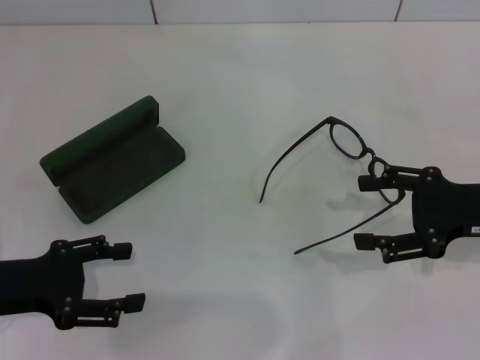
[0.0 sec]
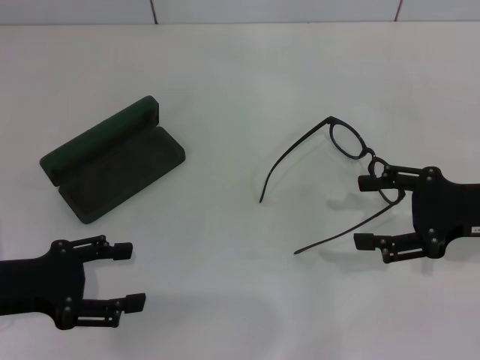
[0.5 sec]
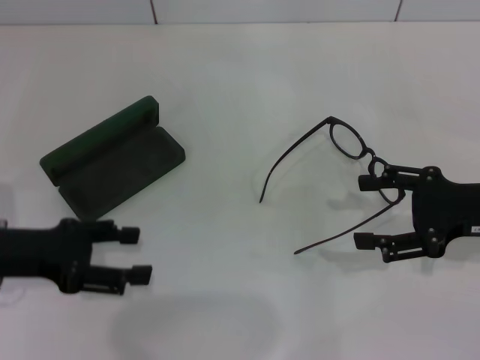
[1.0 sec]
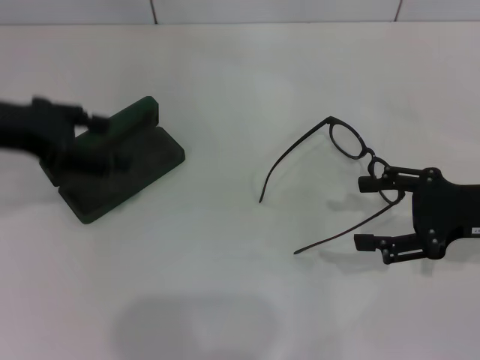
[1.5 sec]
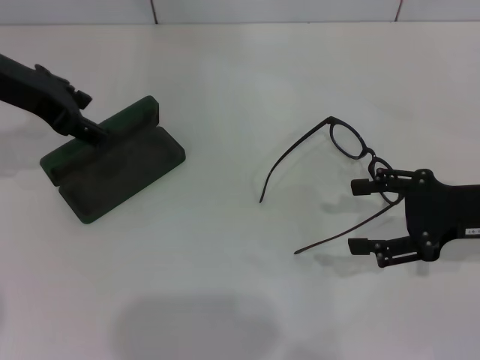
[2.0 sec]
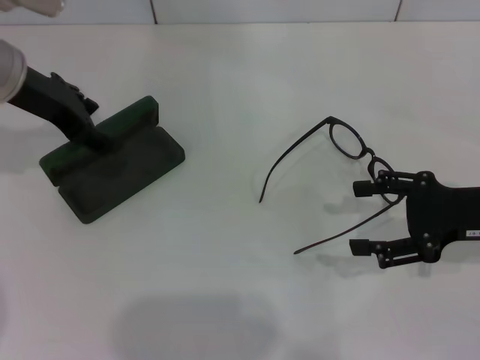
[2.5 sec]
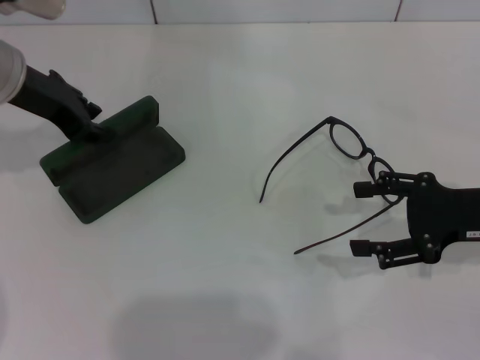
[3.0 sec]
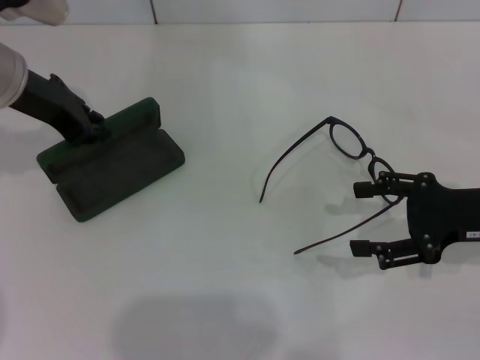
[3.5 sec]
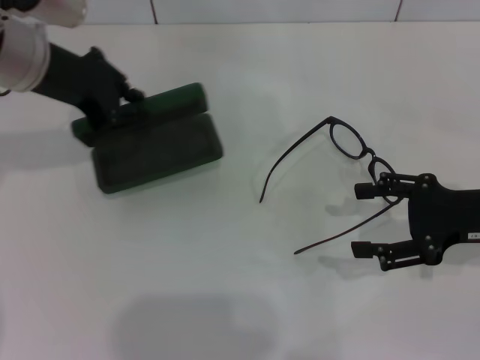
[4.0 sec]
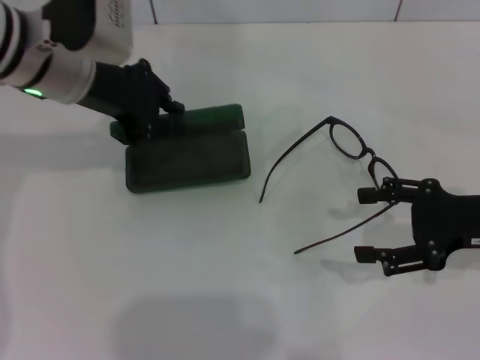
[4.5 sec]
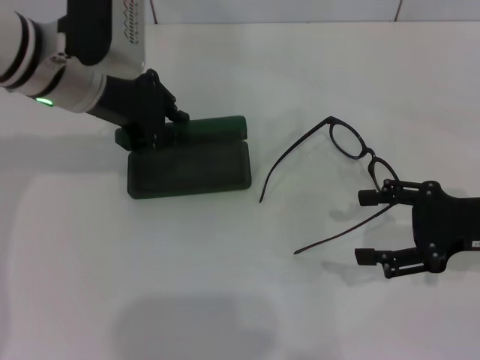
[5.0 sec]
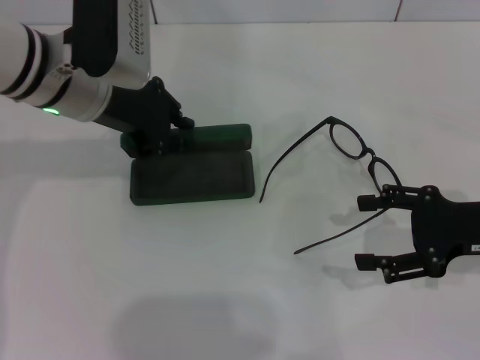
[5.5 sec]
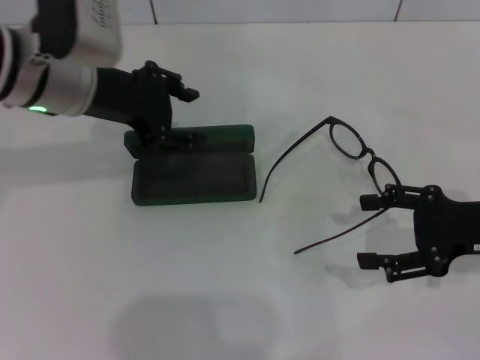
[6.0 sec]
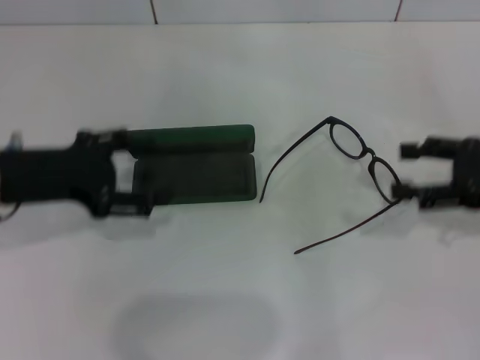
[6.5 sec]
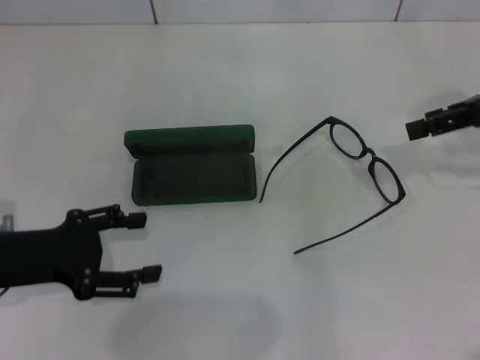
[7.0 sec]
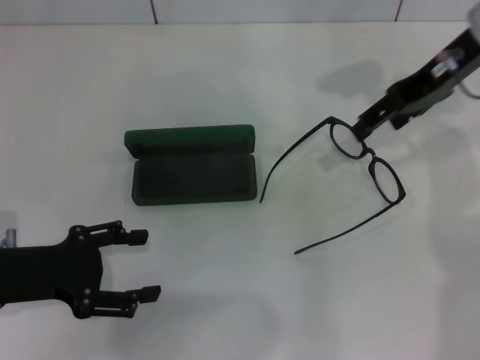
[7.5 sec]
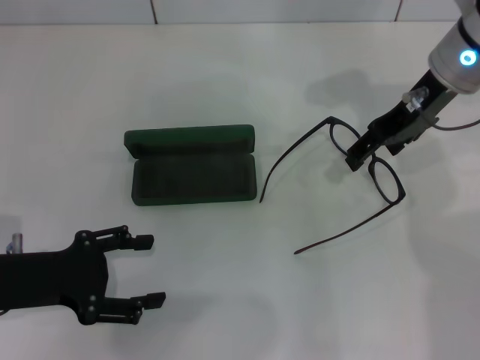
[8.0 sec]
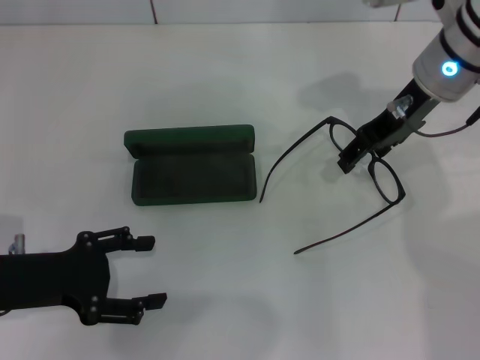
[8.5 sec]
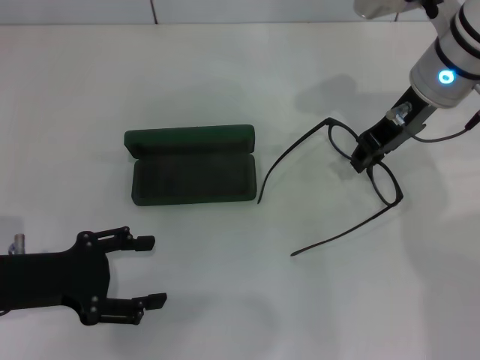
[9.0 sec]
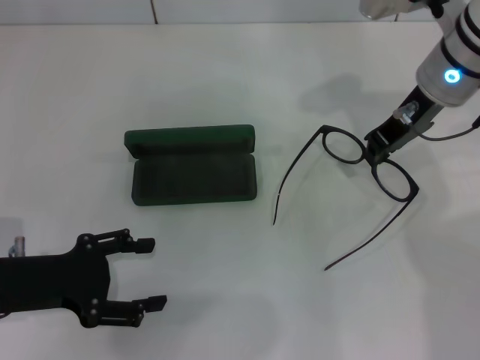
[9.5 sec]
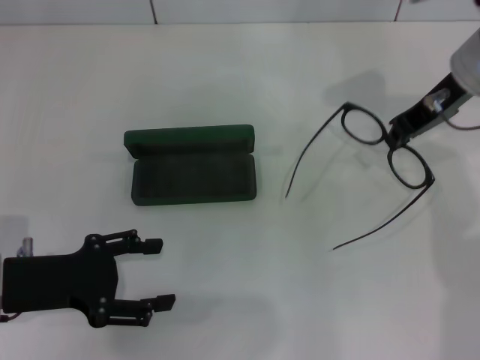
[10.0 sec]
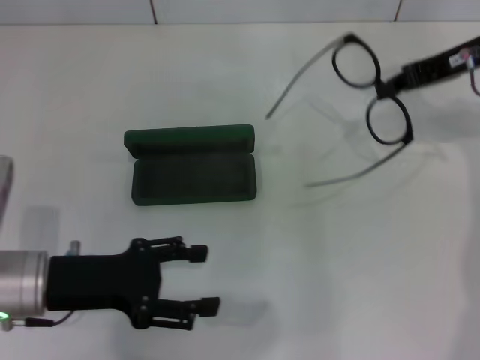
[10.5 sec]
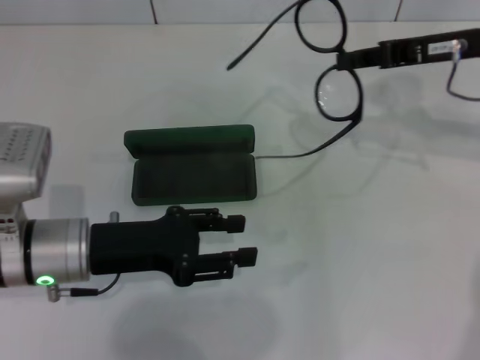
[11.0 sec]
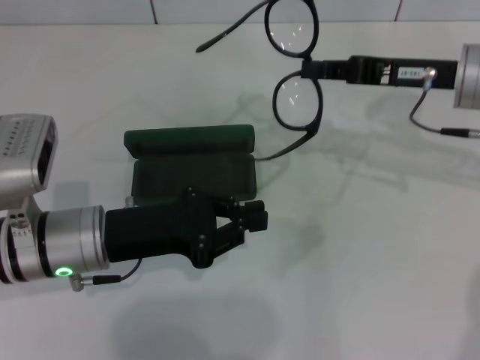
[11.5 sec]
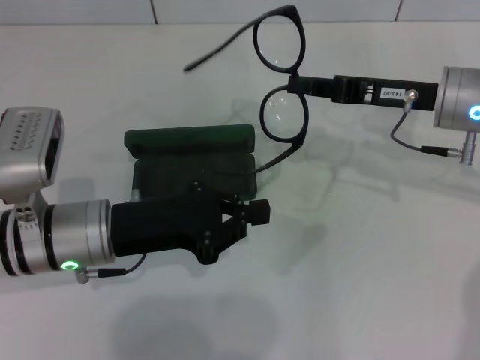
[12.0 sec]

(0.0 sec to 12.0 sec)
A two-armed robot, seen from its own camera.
Step, 0.0 sec - 3.0 sec: Grab the glasses case with your left hand.
Step, 3.5 sec - 5.5 sec: Place the glasses case in the center of the table with your left hand.
Step, 6.0 sec - 9.0 sec: Grab the eyeglass frame with your right hand.
0.0 sec - 2.0 sec: The left gripper is displaced forward and upward by about 20 cm.
2.0 sec - 4.0 sec: The left gripper closes its fingers.
4.0 sec - 6.0 sec: The grippers move only a little.
6.0 sec - 8.0 sec: The right gripper moves forward, to the left and upward, about 20 cm, while the left gripper shifts about 20 cm backward, downward and to the left, and opens.
8.0 sec - 10.0 sec: The right gripper closes its fingers.
10.0 sec - 12.0 sec: The left gripper shifts roughly 10 cm to the right, and closes up. Meanwhile the right gripper shifts approximately 5 cm downward.

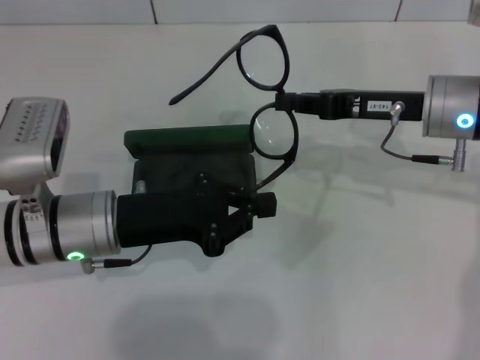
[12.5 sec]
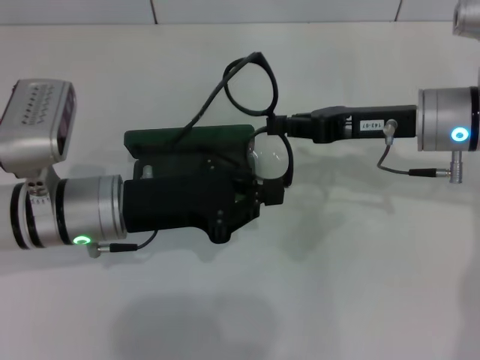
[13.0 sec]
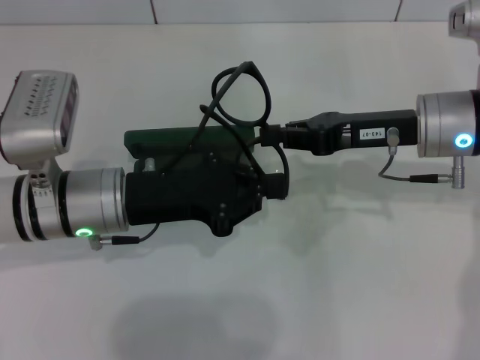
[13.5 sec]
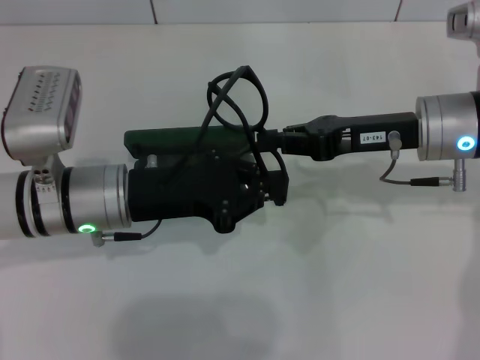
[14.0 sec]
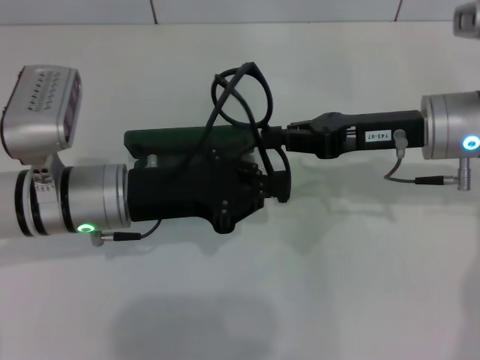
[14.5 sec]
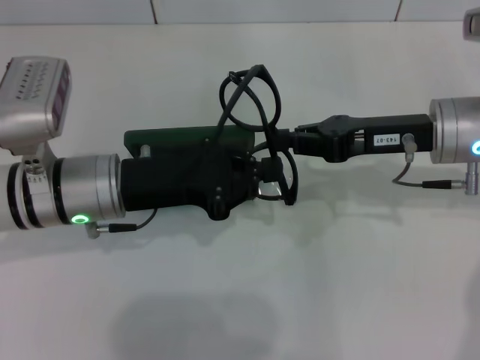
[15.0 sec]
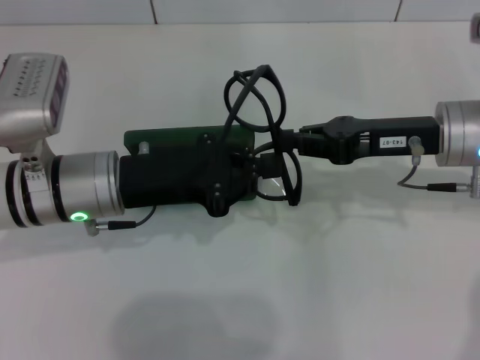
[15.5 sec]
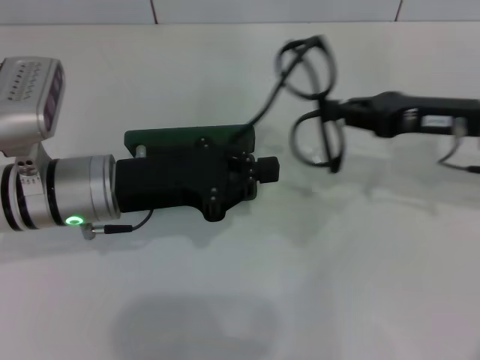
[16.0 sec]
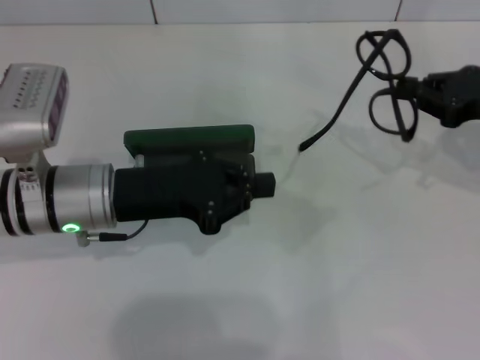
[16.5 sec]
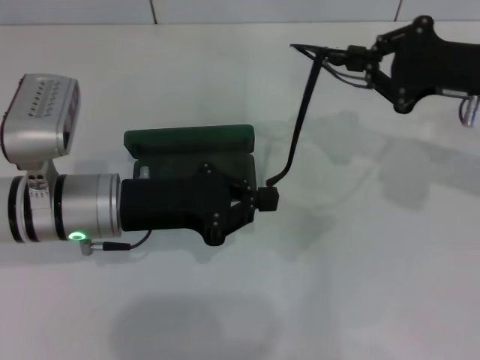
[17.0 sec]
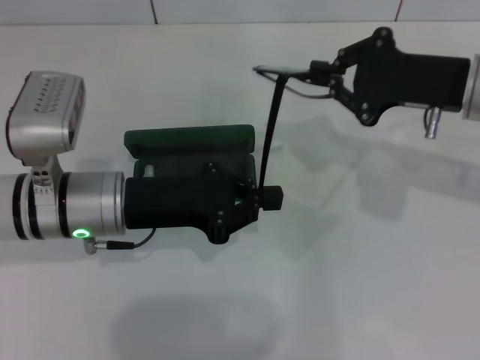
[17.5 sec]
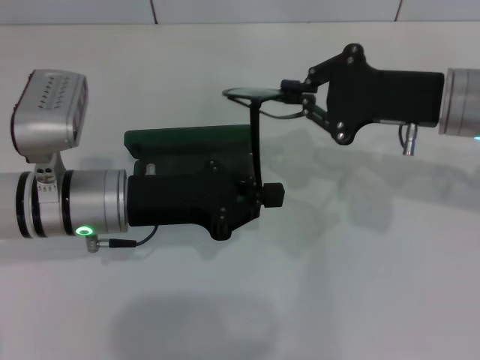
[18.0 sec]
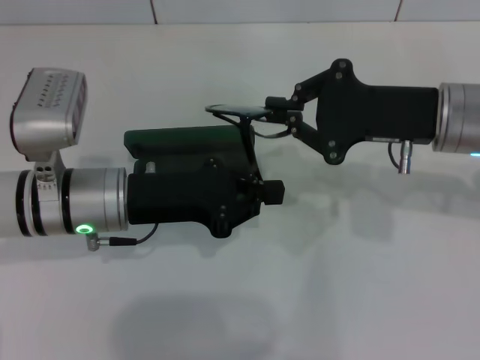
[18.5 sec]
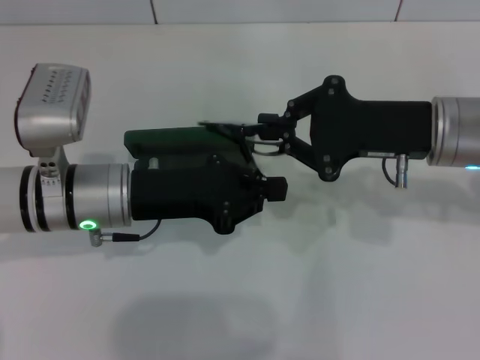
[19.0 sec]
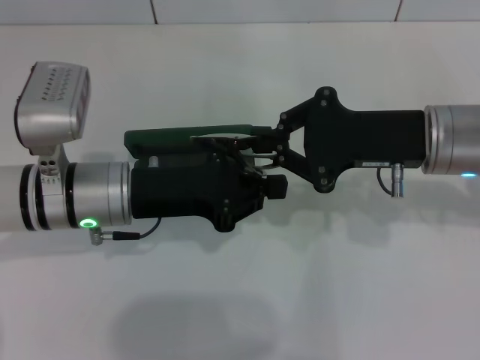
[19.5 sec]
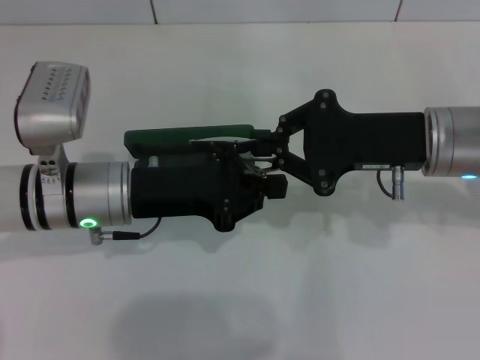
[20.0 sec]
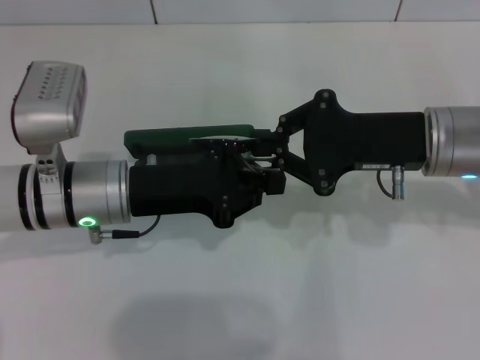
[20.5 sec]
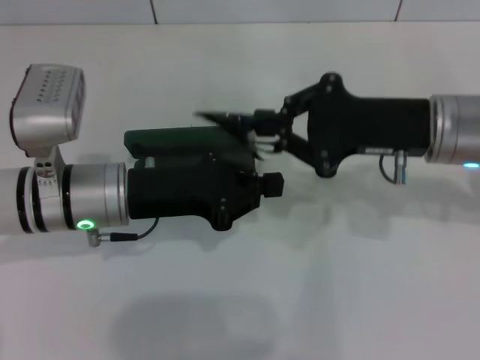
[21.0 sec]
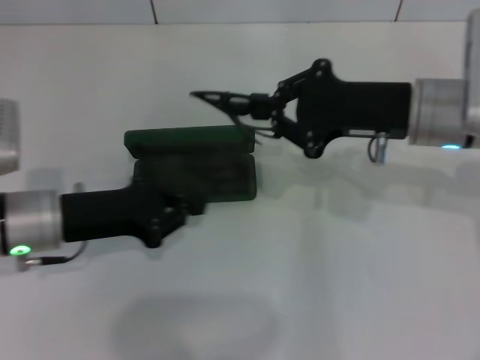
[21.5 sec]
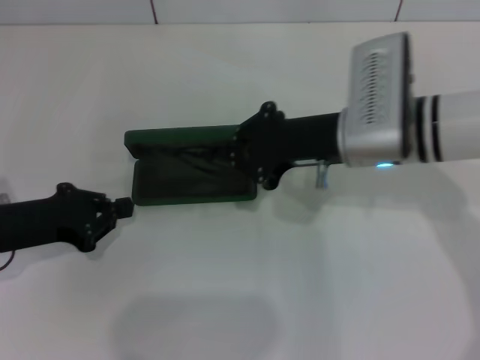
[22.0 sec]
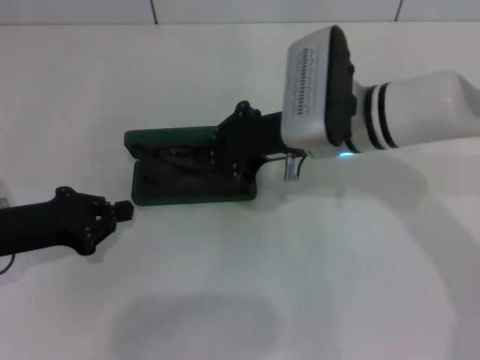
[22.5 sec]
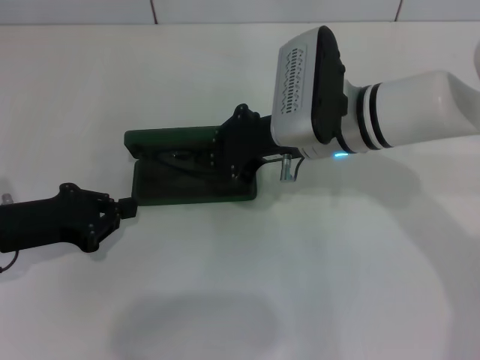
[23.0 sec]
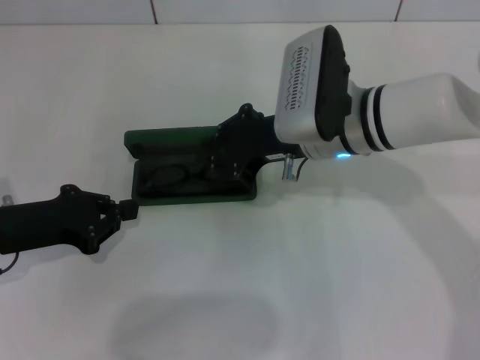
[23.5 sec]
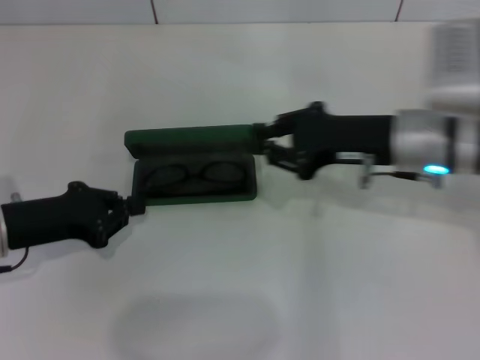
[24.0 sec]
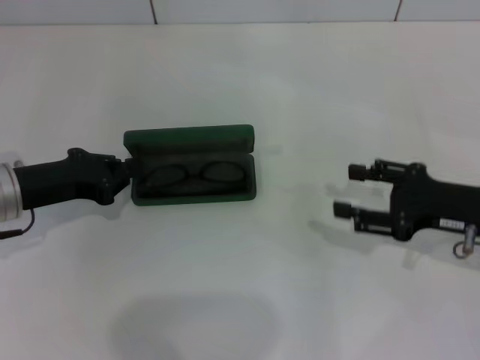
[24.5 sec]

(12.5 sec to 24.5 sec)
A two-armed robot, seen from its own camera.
Step, 12.5 sec - 20.5 sec: Lift the glasses with your right hand.
Step, 21.0 sec - 23.5 sec: Put the glasses into the case with your right hand.
14.5 sec - 16.5 sec: The right gripper heads to the right, covering roughly 10 cm.
16.5 sec - 18.5 sec: The right gripper goes some 10 cm to the left.
18.5 sec - 20.5 sec: There are only small adjustments of the grippers.
20.5 sec - 22.5 sec: The two grippers go some 10 cm to the left.
22.5 sec - 24.5 sec: The right gripper goes roughly 20 cm to the right and backward, and opens its fingers.

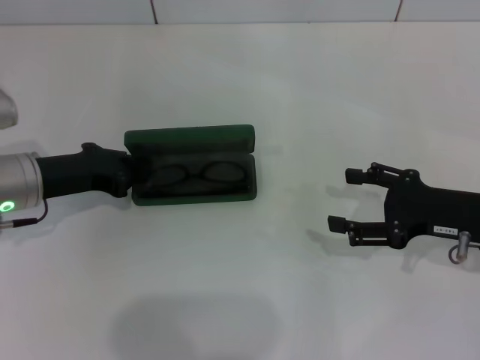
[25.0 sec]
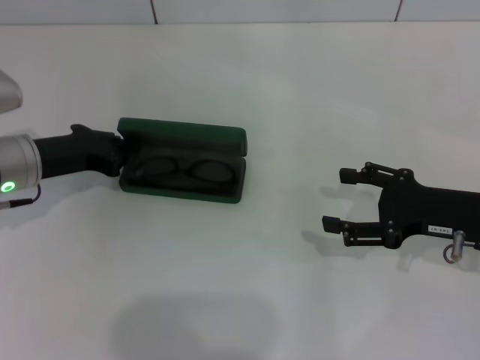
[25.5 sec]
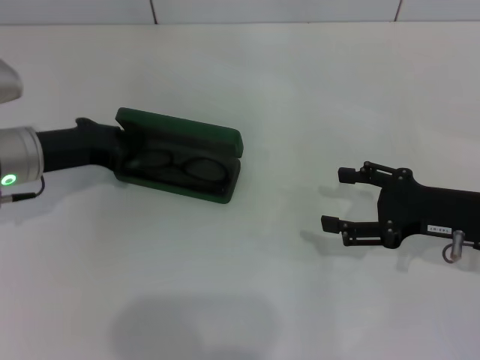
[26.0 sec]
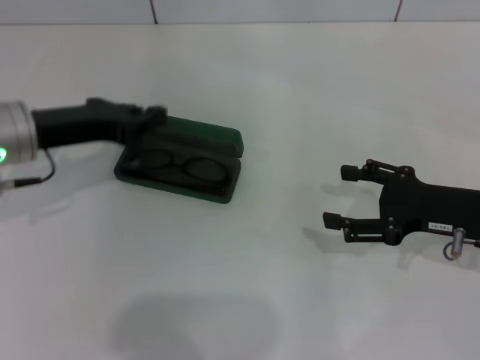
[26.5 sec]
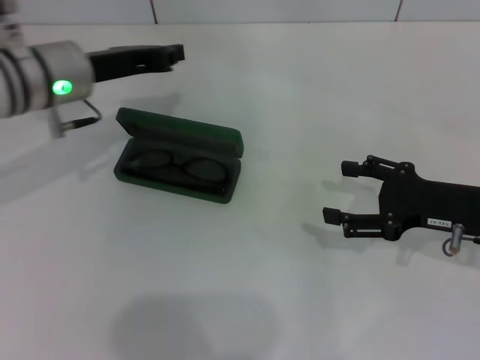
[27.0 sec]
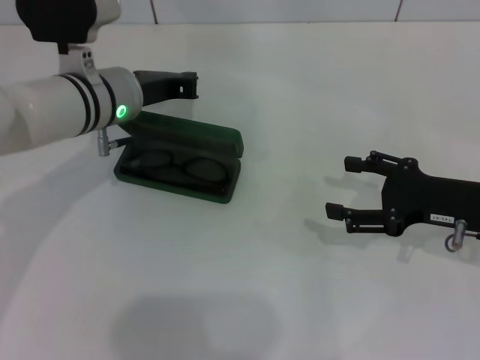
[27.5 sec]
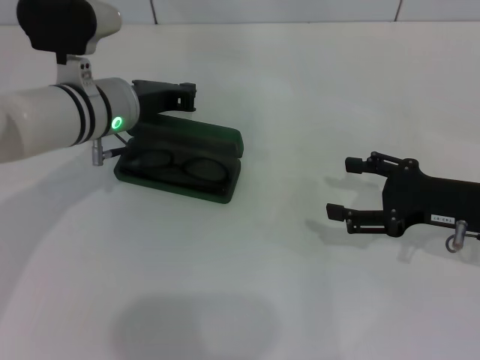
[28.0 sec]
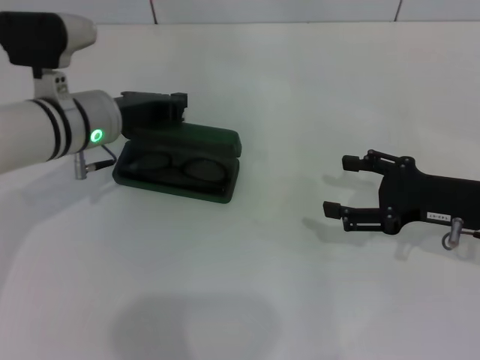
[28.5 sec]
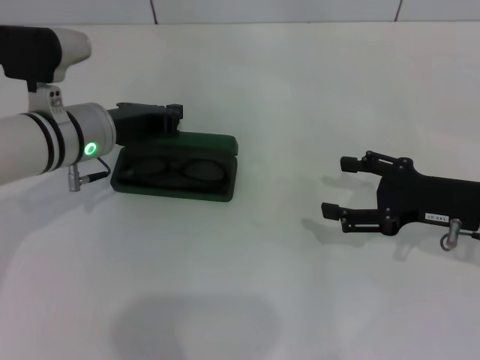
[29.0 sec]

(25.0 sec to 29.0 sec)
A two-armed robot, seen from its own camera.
25.0 sec - 27.0 sec: The left gripper goes roughly 10 cm upward, to the right and forward.
27.0 sec - 29.0 sec: The left gripper goes approximately 5 cm downward.
